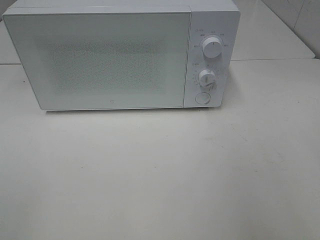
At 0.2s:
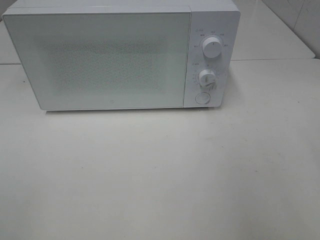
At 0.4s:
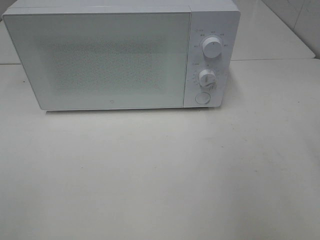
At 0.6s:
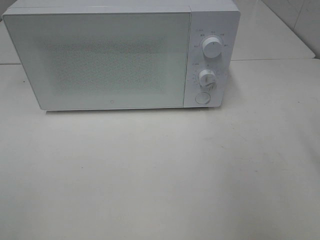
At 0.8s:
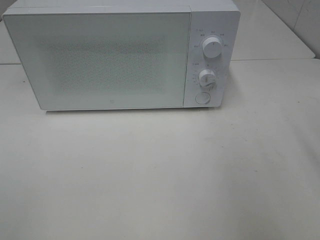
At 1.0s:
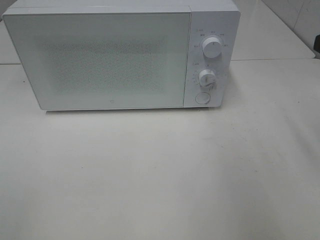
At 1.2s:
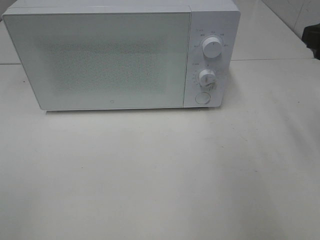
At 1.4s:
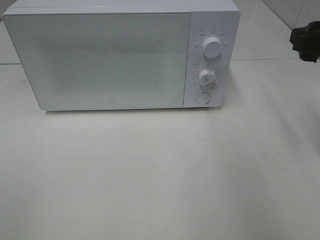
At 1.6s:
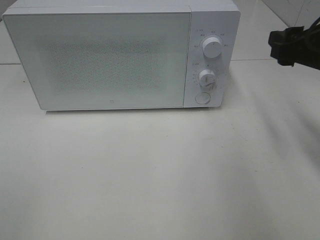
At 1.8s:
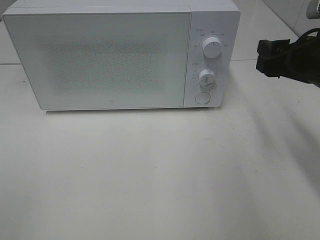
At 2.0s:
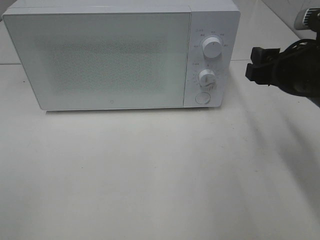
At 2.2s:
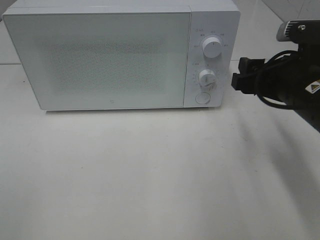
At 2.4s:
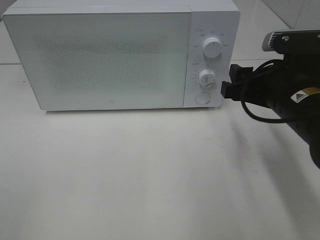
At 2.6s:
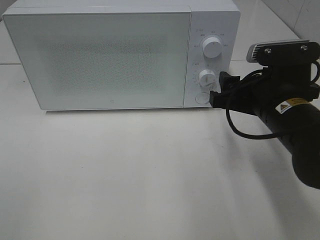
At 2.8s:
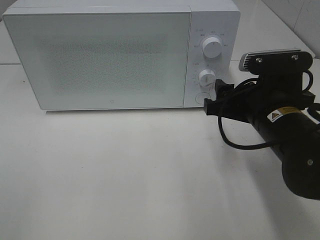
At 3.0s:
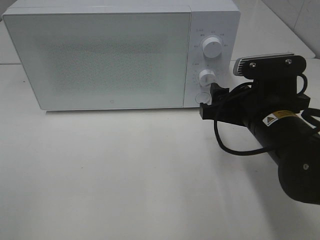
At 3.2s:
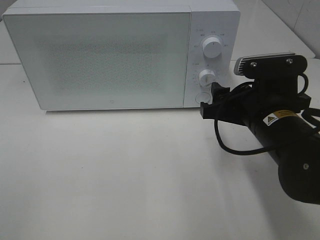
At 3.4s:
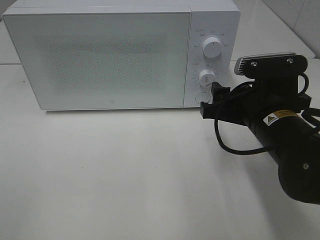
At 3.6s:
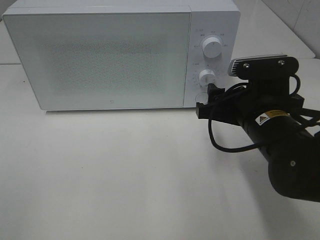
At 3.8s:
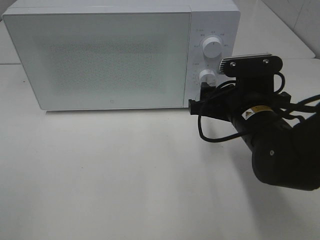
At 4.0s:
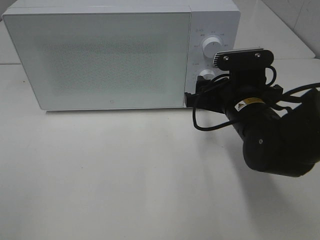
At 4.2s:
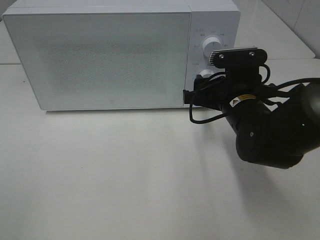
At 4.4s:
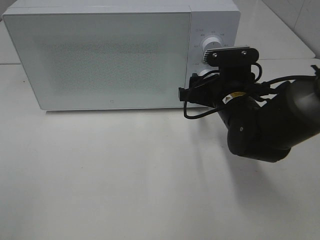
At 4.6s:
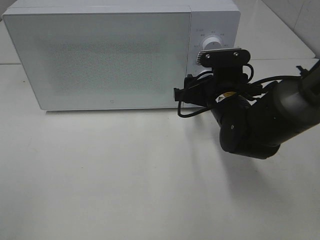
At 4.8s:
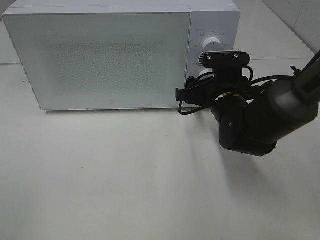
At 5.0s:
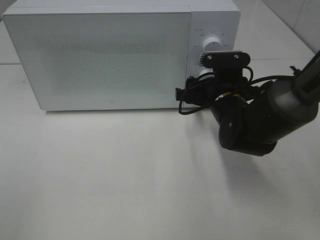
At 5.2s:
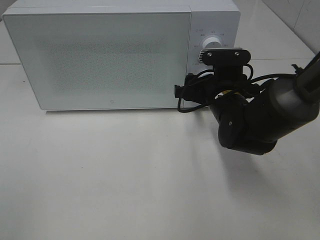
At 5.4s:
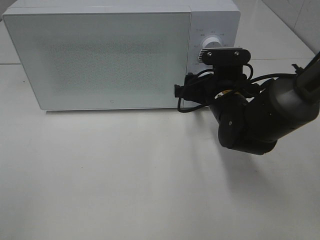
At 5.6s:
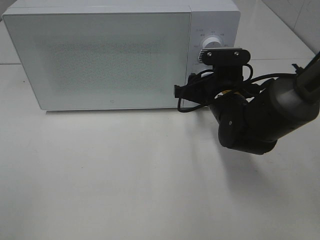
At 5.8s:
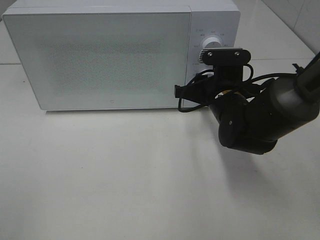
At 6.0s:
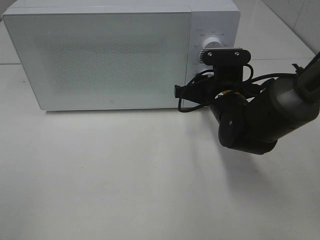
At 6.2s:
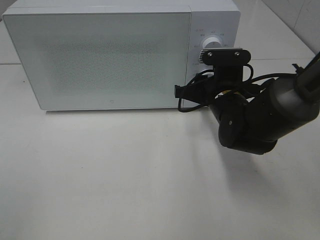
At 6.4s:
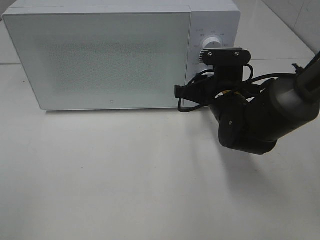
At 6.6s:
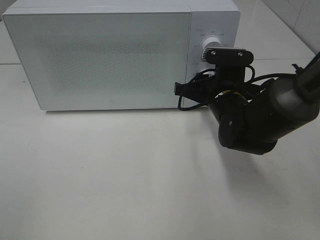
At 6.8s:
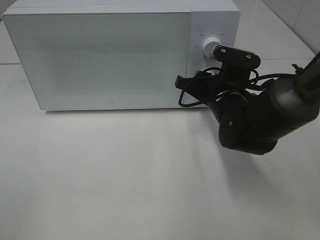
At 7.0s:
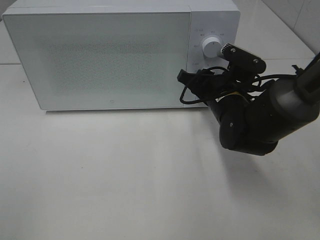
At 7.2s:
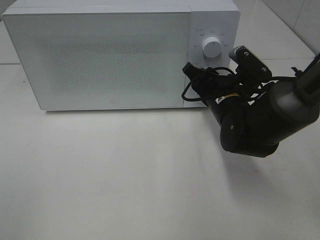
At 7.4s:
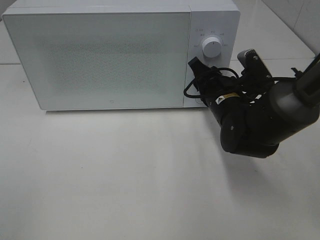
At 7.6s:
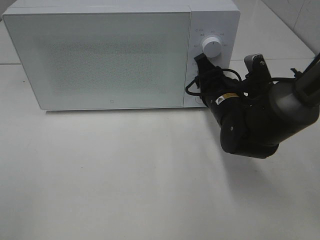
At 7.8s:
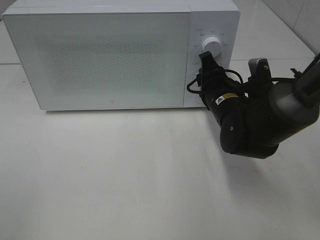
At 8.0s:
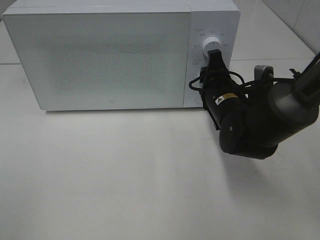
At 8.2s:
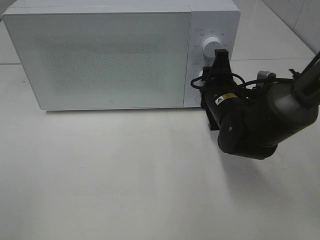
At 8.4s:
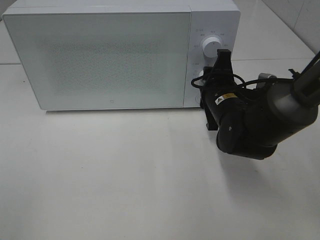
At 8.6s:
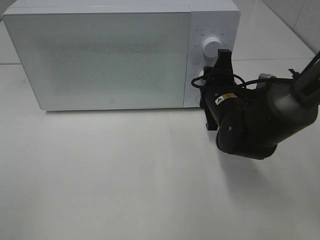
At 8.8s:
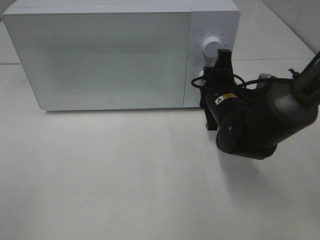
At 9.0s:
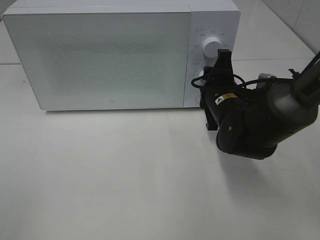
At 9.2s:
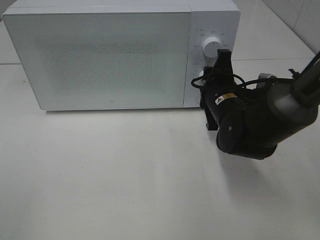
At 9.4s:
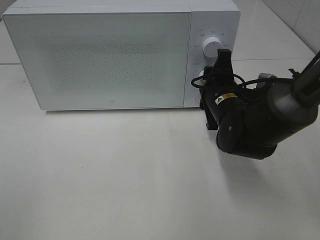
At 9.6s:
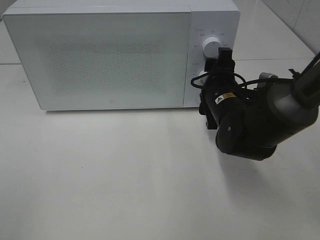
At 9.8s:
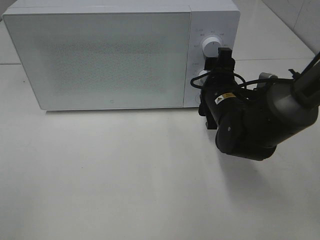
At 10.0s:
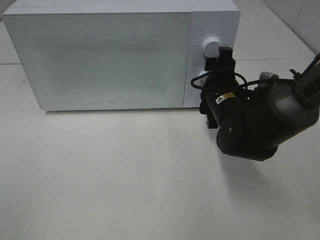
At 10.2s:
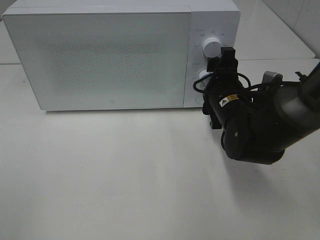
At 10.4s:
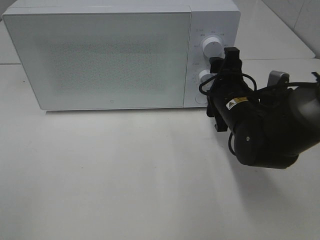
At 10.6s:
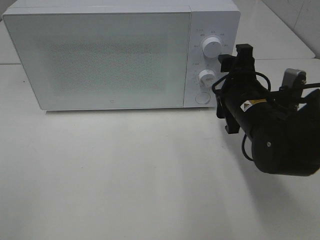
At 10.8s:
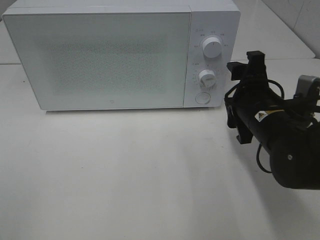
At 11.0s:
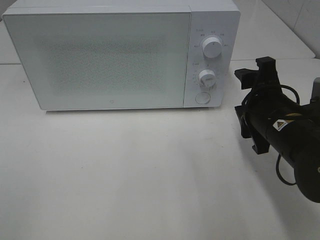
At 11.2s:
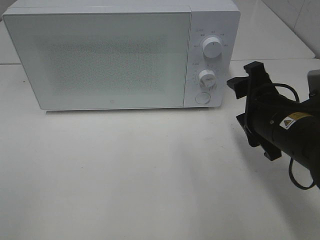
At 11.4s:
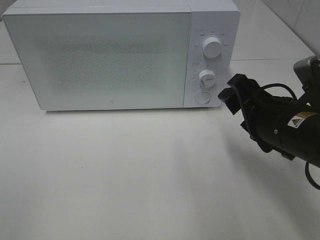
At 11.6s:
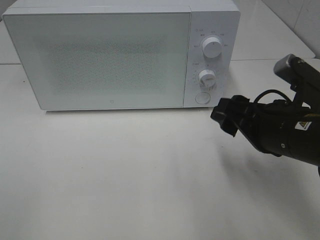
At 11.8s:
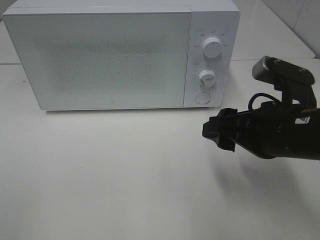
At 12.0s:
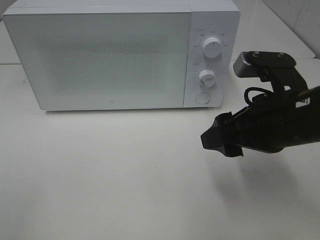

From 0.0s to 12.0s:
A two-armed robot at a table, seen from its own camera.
Task of the whole recording: Heat Sandwich.
Step, from 0.0s to 10.6s: Right hand: twist timer button.
From 0.0s to 1.6s: The right gripper moves forward, some 20 cm.
From 1.6s to 3.0s: The right gripper travels to the left and downward by roughly 10 cm.
From 3.0s to 4.4s: The right gripper moves forward, about 10 cm.
From 4.4s to 6.0s: The right gripper closes up.
From 9.0s to 10.4s: The grippers make only small movements.
From 10.4s to 12.0s: The right gripper shifts approximately 10 cm backward and upward.

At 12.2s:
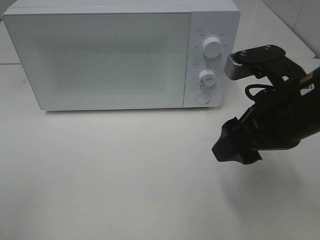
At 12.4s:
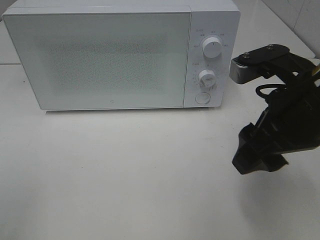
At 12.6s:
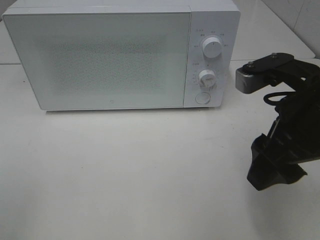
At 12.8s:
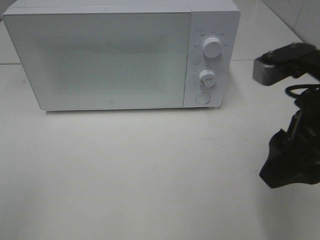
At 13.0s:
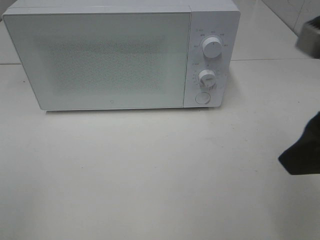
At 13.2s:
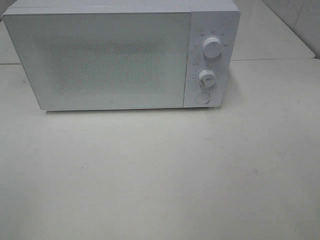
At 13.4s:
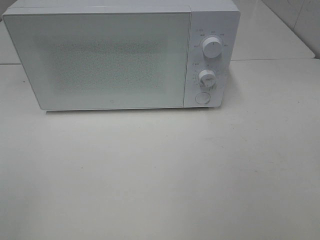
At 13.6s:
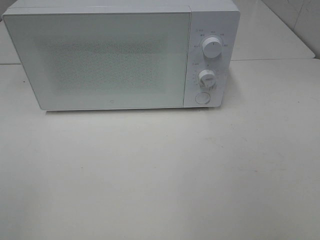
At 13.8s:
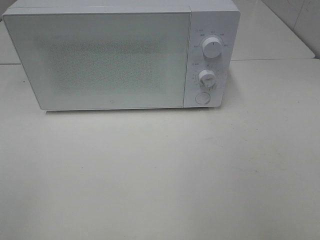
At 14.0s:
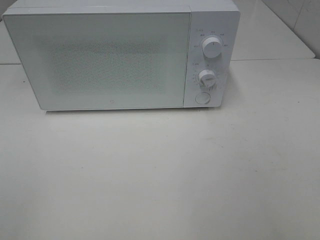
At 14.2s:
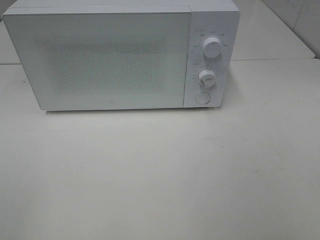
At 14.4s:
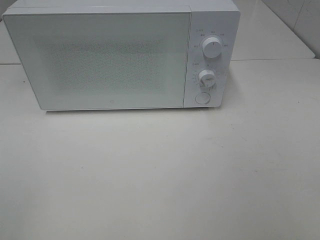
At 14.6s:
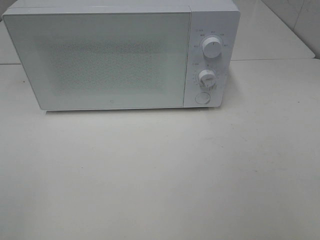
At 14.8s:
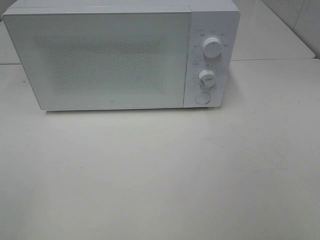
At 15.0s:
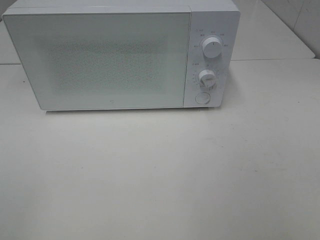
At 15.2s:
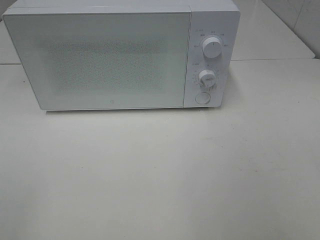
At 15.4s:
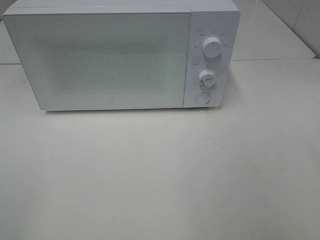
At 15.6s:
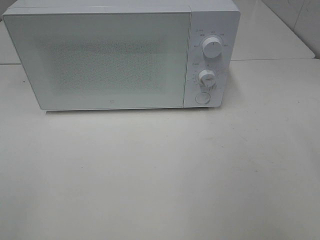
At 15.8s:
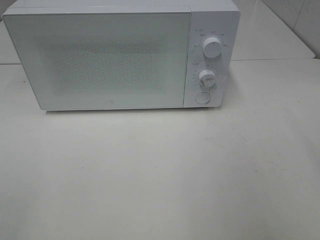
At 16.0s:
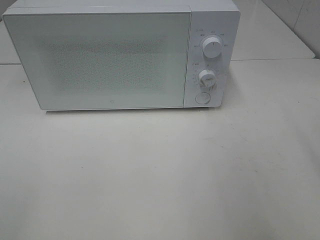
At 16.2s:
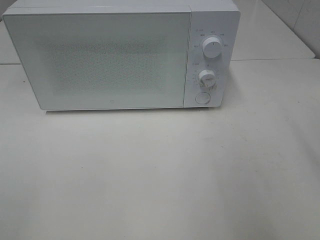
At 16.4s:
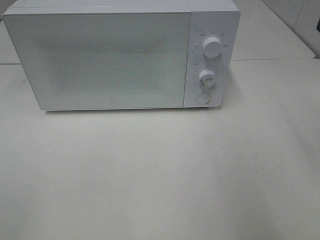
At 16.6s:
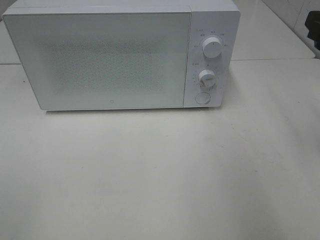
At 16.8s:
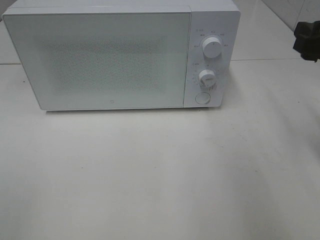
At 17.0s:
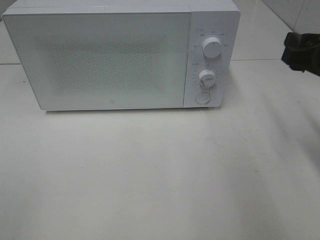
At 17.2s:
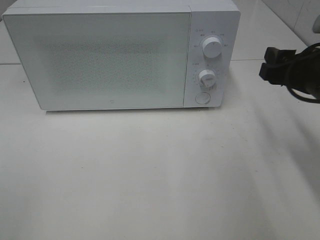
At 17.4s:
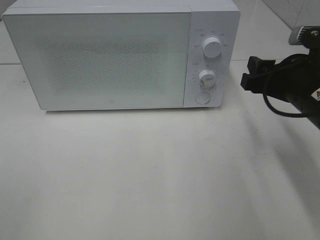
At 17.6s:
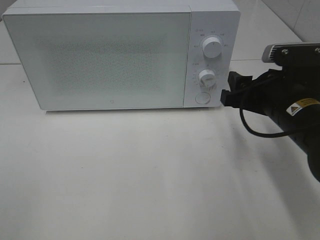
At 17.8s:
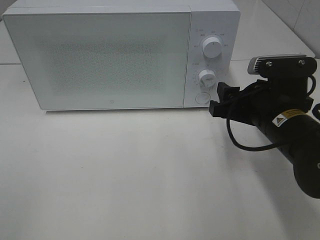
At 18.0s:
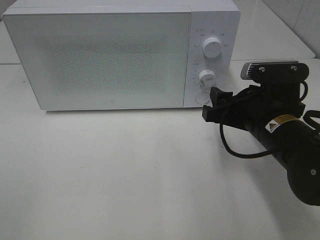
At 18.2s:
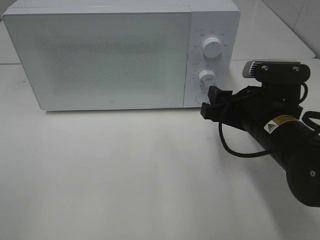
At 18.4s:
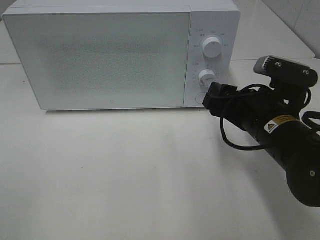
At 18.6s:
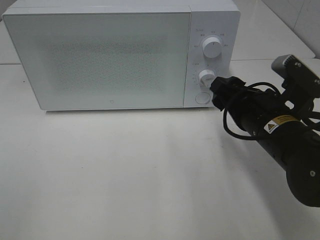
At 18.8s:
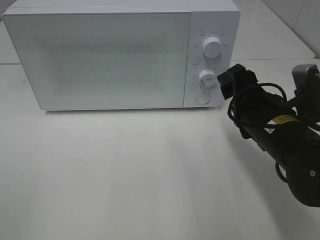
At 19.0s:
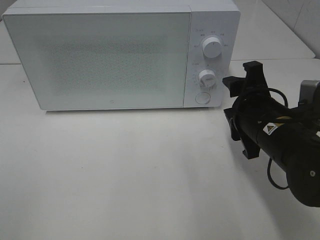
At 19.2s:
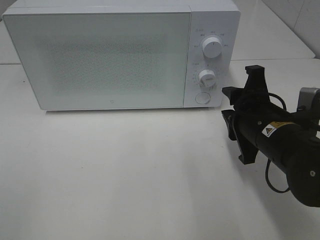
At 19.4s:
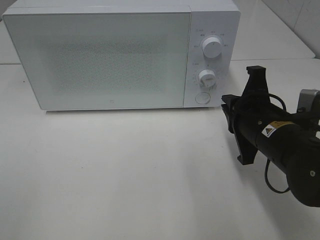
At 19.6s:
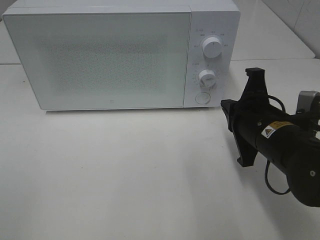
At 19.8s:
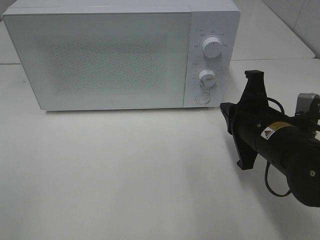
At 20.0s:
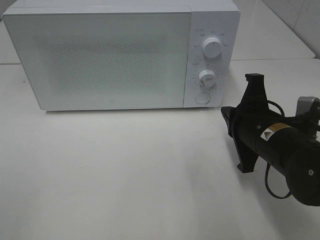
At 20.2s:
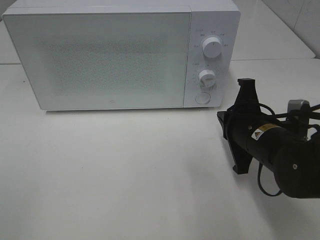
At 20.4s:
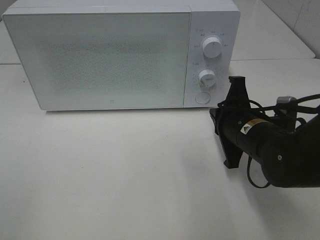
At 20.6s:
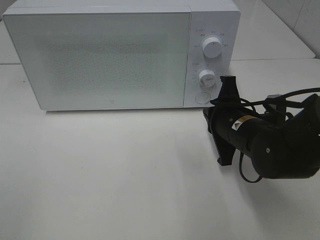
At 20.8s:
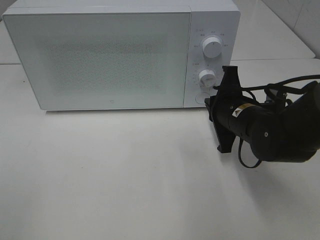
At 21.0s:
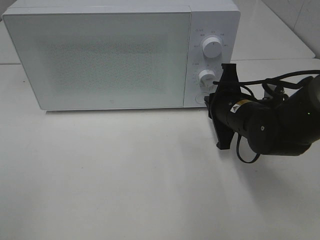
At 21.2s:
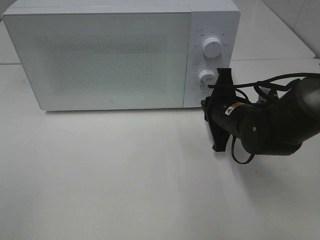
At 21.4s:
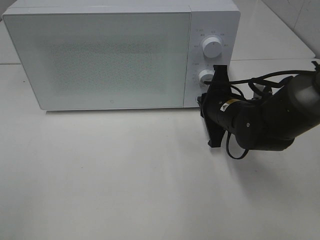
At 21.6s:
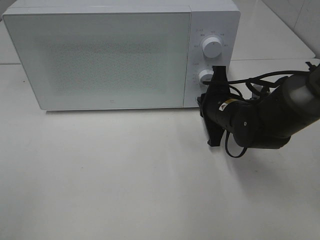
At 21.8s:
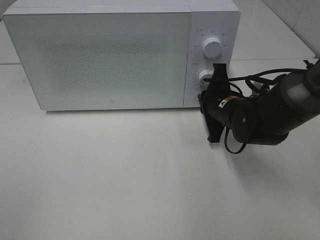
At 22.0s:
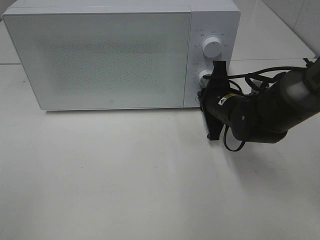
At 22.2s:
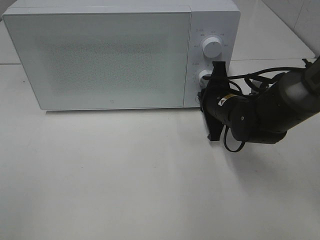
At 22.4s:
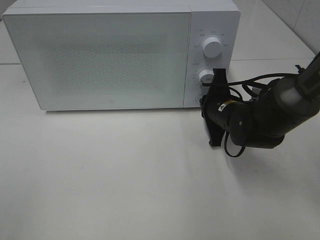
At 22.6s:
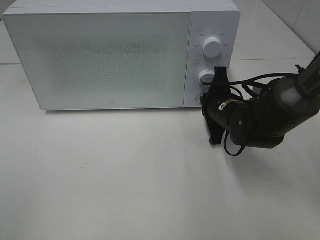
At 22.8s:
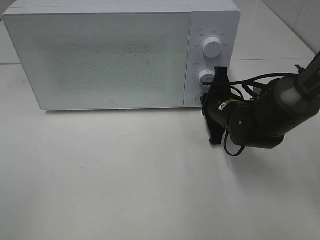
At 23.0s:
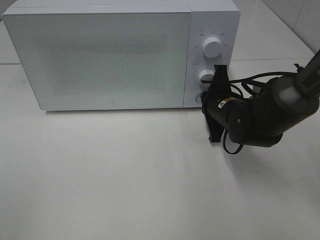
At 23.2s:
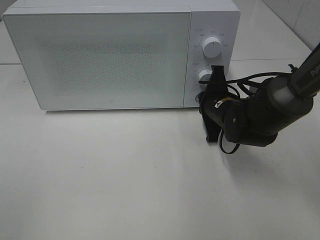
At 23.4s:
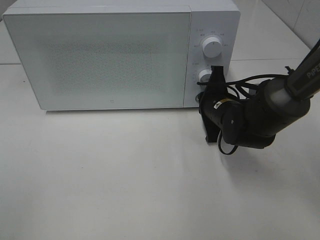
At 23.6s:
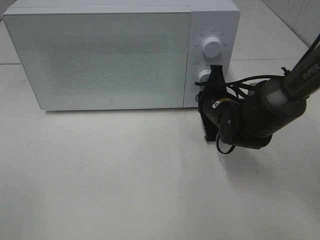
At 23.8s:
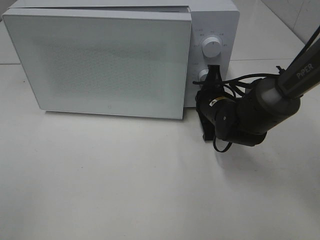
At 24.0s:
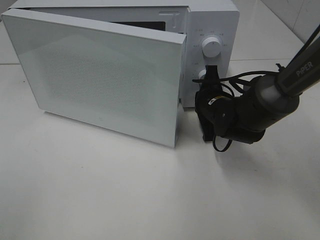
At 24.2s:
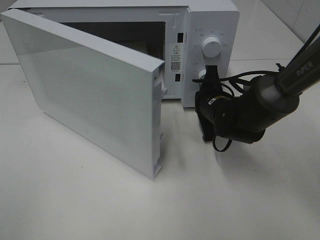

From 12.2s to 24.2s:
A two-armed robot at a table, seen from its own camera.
Task of the whole recording: Heat Sandwich.
From 12.2s to 13.8s: The right gripper is displaced backward, to the right and upward by roughly 30 cm.
From 16.6s to 18.2s: The right gripper travels downward and to the left by approximately 15 cm.
From 18.2s to 19.8s: The right gripper closes.
From 19.8s to 21.2s: The right gripper shifts about 10 cm forward.
From 21.2s to 22.6s: The grippers stay close to where they were, moving slightly.
